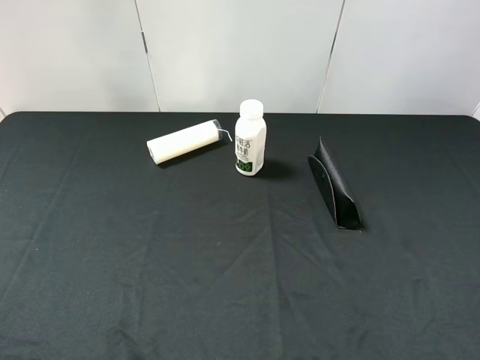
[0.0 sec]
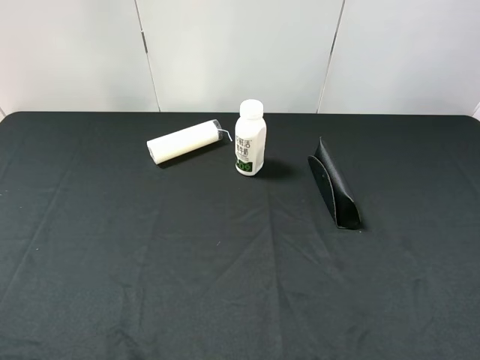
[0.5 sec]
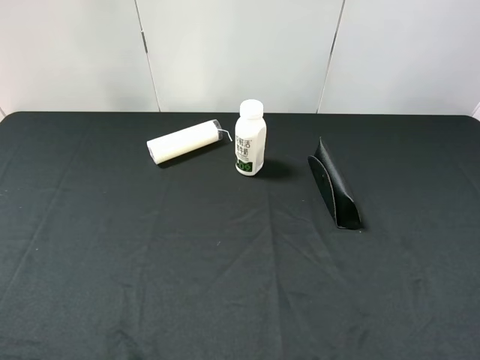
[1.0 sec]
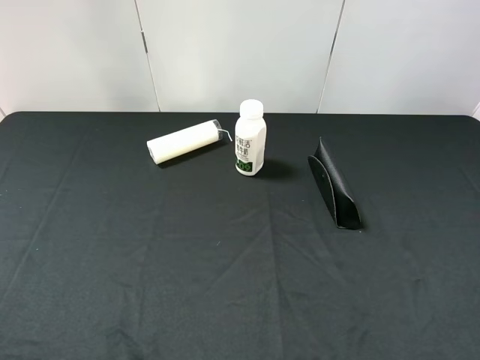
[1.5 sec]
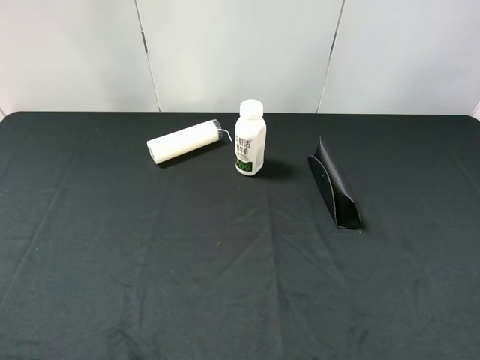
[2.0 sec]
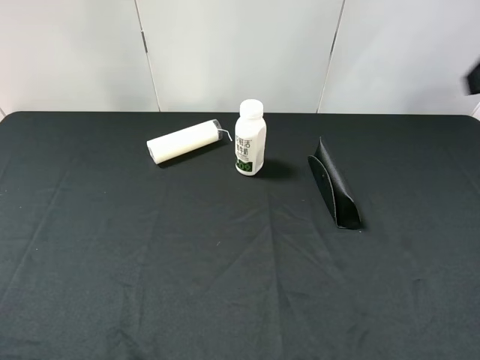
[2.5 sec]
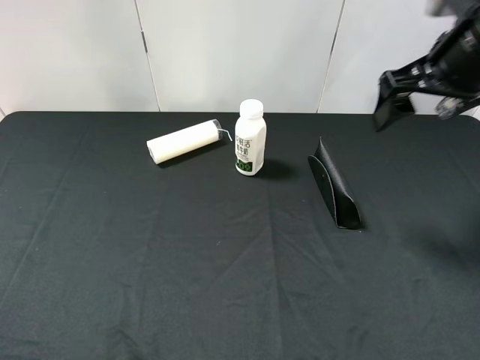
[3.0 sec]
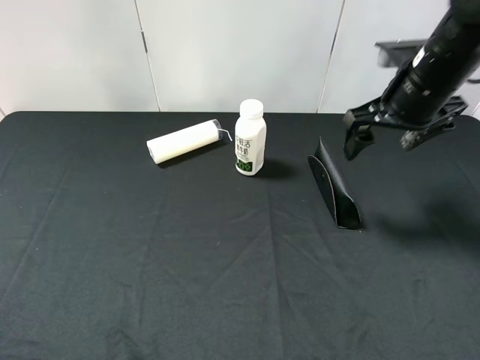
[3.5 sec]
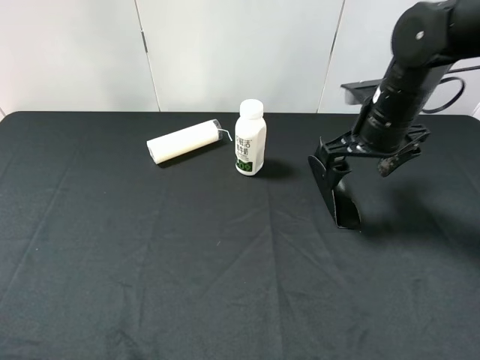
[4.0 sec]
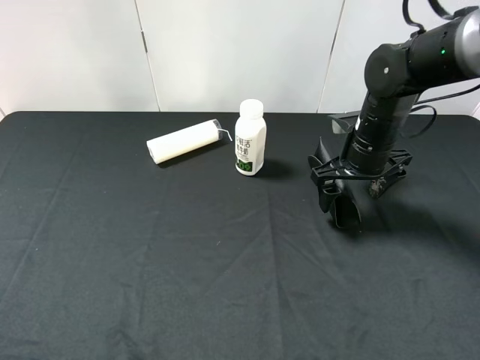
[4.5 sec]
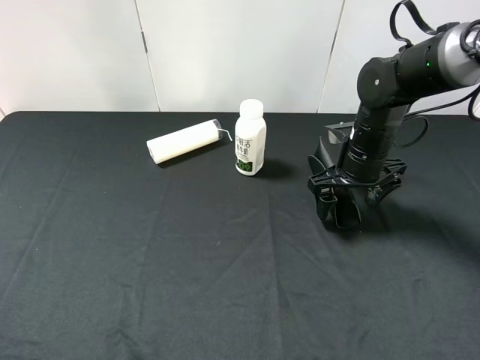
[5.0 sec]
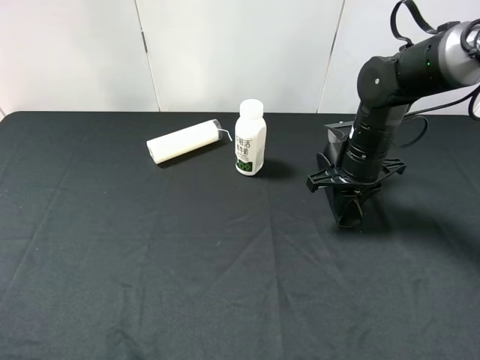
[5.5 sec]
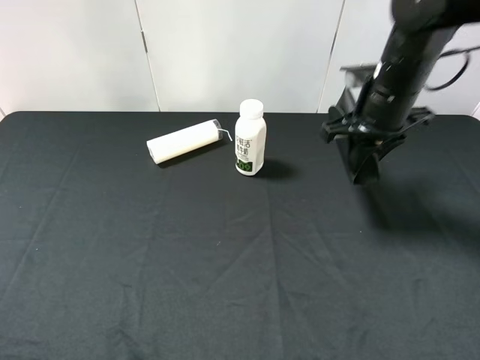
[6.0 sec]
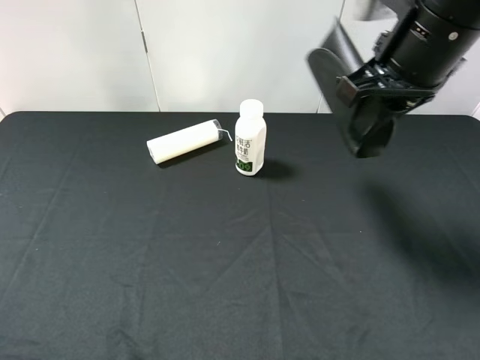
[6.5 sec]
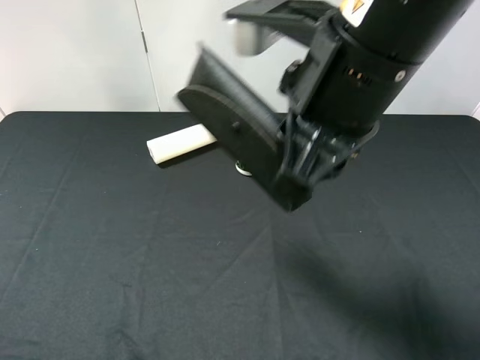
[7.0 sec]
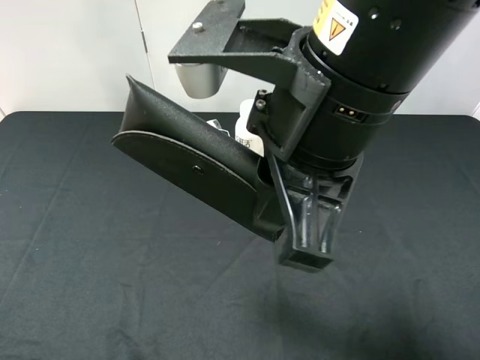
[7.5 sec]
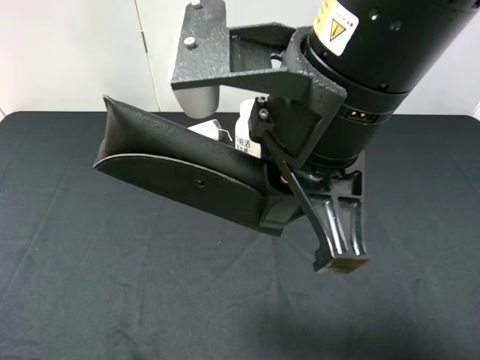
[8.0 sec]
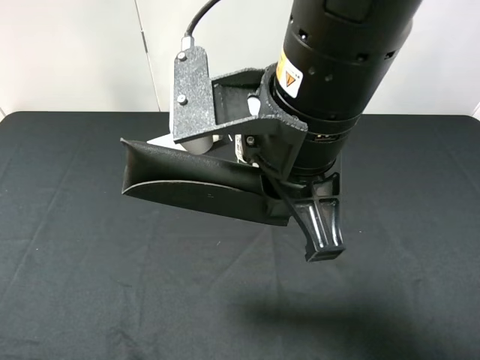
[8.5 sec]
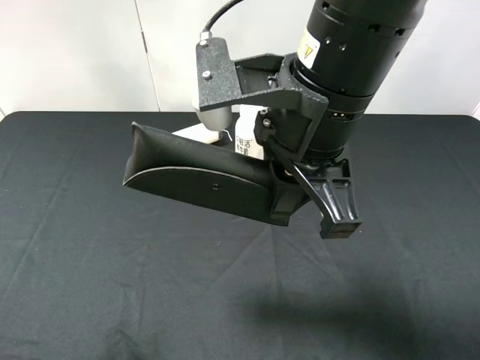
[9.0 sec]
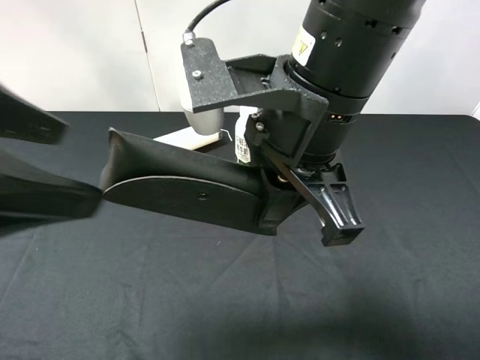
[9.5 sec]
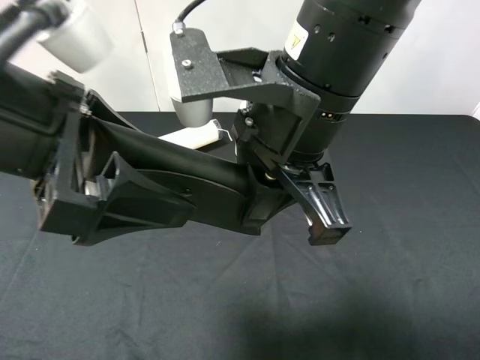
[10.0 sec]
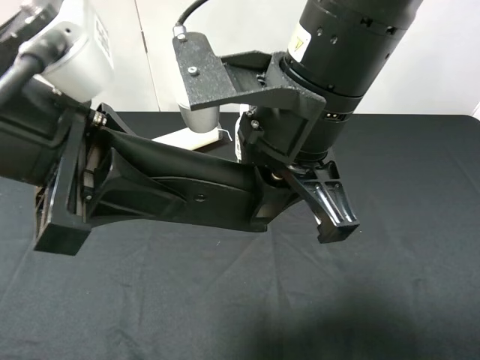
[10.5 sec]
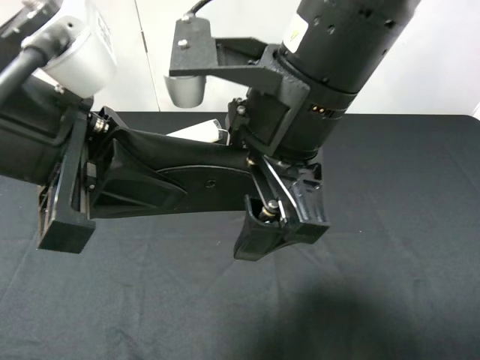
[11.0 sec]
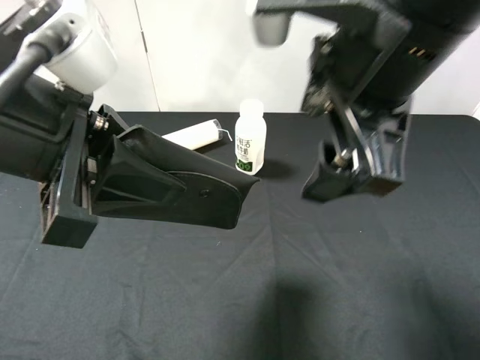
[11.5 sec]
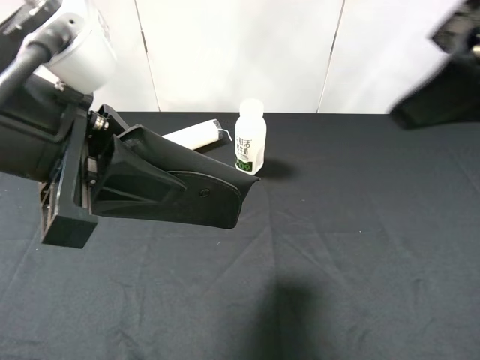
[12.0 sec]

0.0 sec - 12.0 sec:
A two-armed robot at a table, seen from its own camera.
Task of the whole recording: use the right gripper to pick up the item and transfer it from the right gripper to the left gripper.
Step, 0.0 sec - 5.5 sec: Use the right gripper to grab the eyeglass case on the right side of the table.
Step, 6.0 sec - 11.0 sec: Pass the eyeglass case to the left gripper.
2.0 sec - 4.0 sec: The right gripper is displaced forward, downward and to the left by about 35 cm.
4.0 sec - 6.0 sec: The right gripper closes up.
6.0 sec - 8.0 sec: The right gripper is displaced backward, to the left and upward by roughly 25 cm.
8.0 sec - 10.0 sec: The left gripper travels to the right and forward by some 20 cm.
10.0 sec - 12.0 sec: The left gripper closes; the right gripper travels to the right and upward by some 15 cm, and opens up.

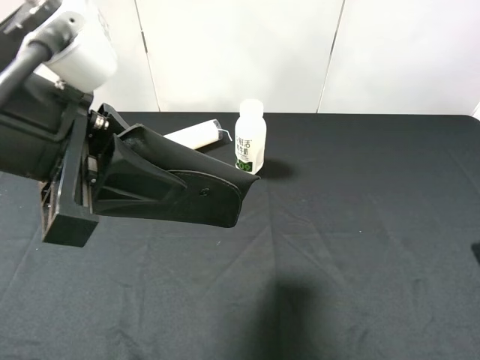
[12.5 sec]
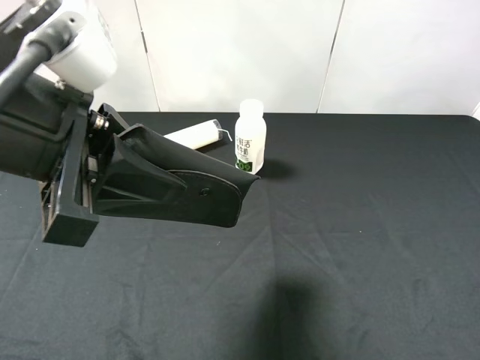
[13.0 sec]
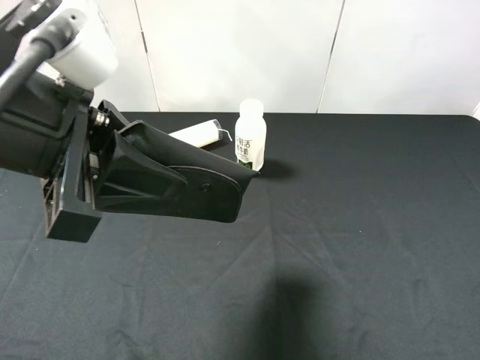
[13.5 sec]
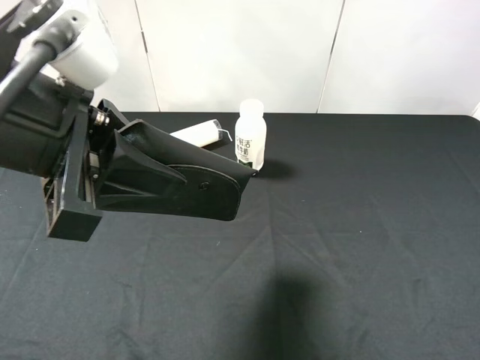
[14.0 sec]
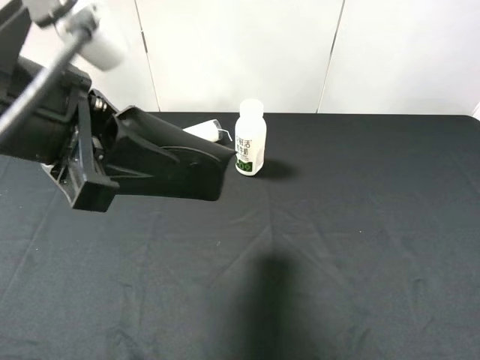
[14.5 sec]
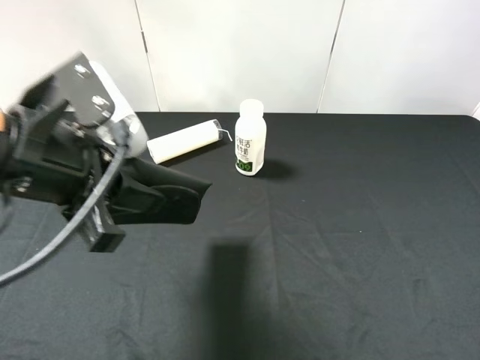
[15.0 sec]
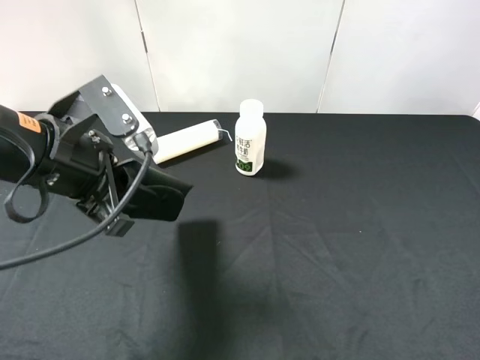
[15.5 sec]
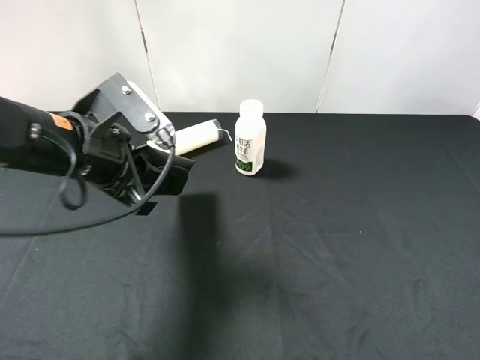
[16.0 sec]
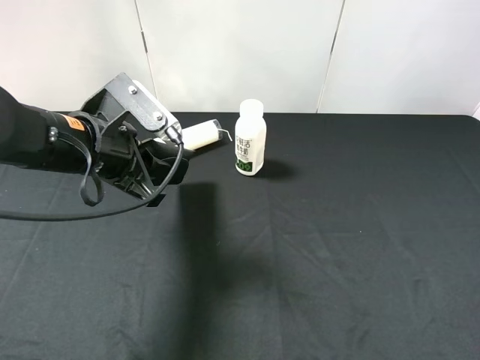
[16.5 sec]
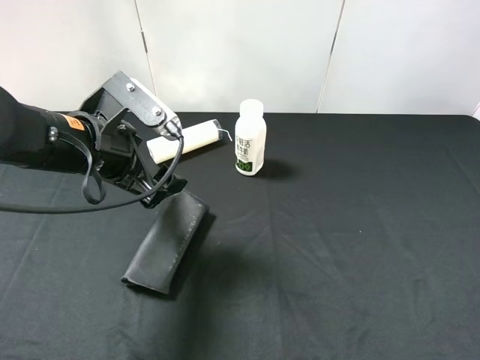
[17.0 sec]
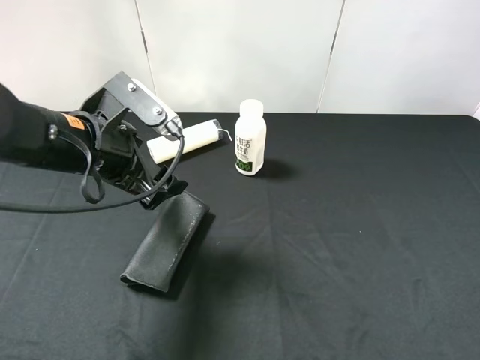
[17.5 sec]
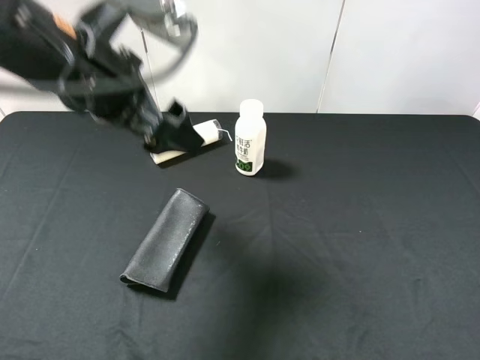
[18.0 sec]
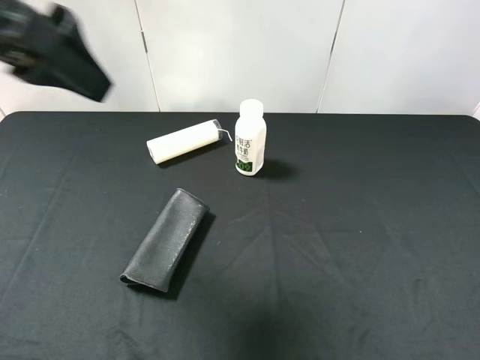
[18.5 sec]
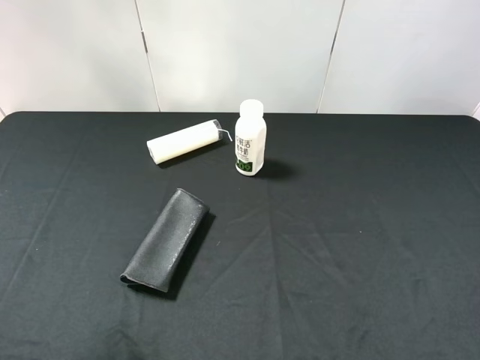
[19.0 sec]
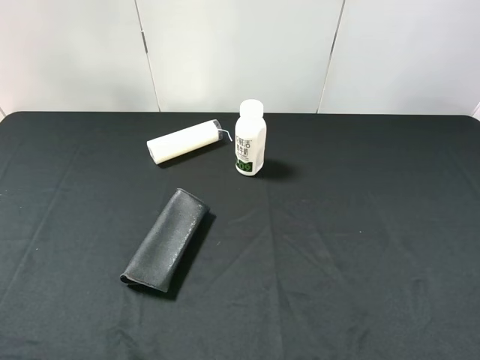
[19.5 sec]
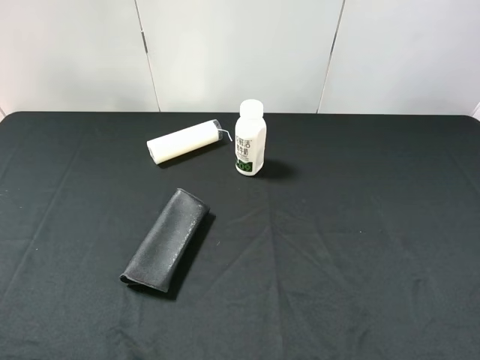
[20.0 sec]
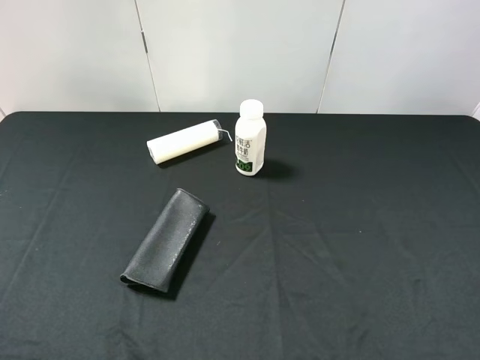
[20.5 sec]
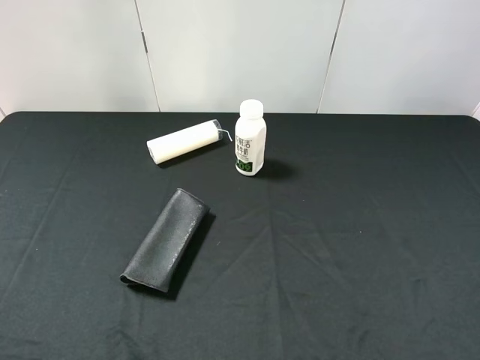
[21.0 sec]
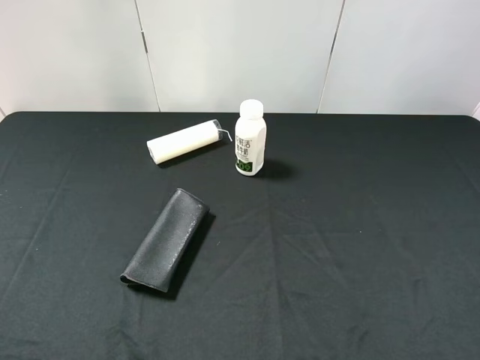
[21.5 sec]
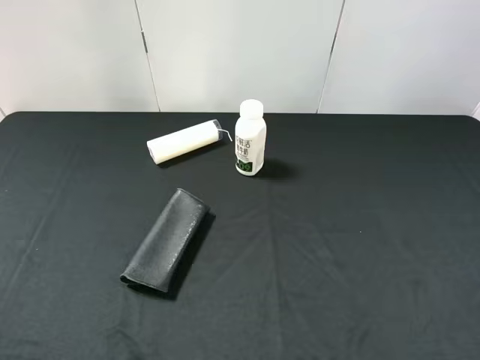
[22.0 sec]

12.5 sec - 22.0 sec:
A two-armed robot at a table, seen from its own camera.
Task of the whole recording: use the right gripper to pick up the item and transfer it from the right gripper to the left gripper.
Step, 12.5 sec - 17.0 sec: The left gripper places eyeglass case on the left side of the table.
12.5 sec - 14.5 sec: The right gripper heads backward, covering about 5 cm.
14.5 sec - 16.5 sec: The left gripper moves downward and forward, approximately 15 cm.
16.5 sec - 18.0 sec: The left gripper goes some 10 cm upward, and opens.
18.0 sec - 20.0 sec: The left gripper is displaced backward and to the left by roughly 30 cm.
